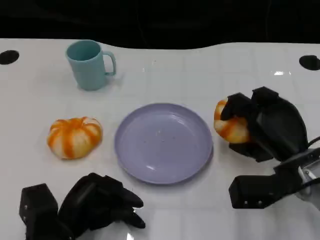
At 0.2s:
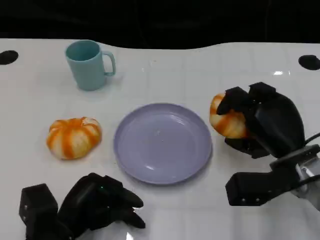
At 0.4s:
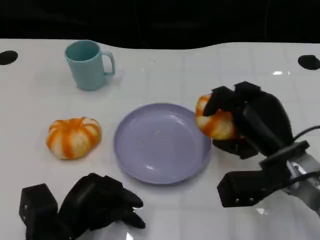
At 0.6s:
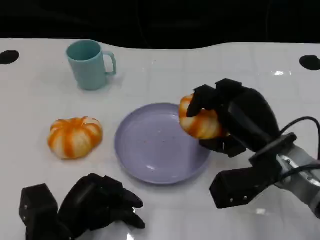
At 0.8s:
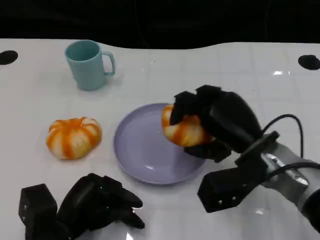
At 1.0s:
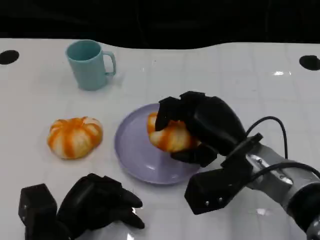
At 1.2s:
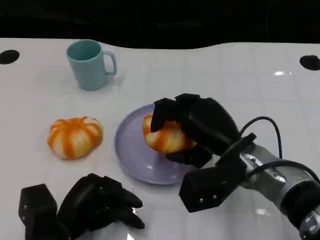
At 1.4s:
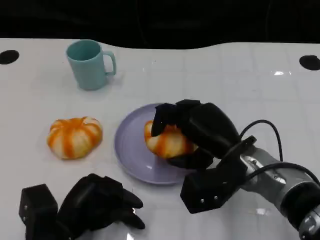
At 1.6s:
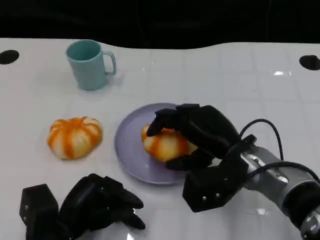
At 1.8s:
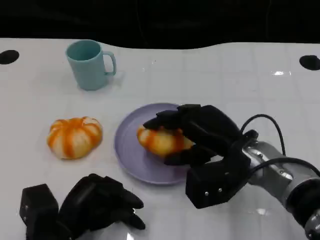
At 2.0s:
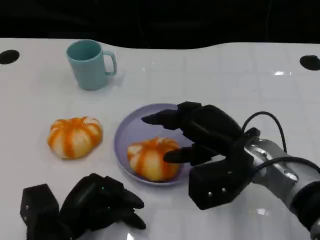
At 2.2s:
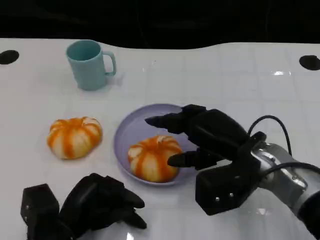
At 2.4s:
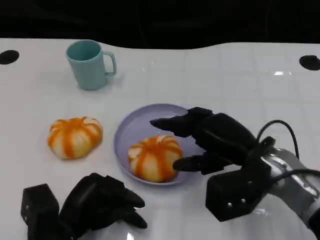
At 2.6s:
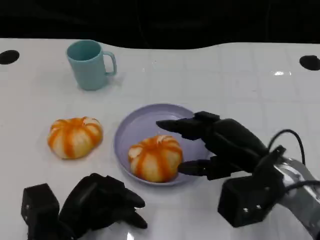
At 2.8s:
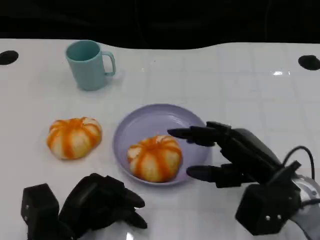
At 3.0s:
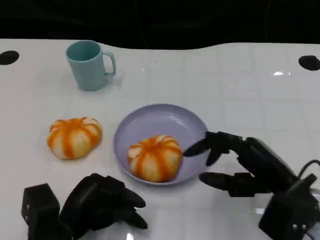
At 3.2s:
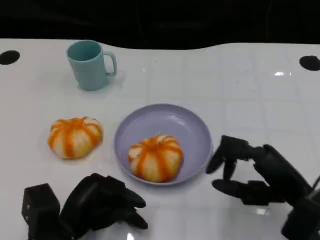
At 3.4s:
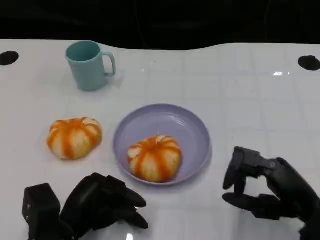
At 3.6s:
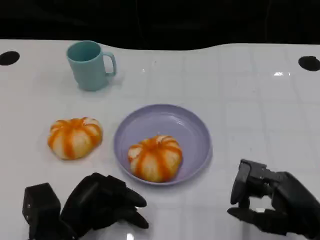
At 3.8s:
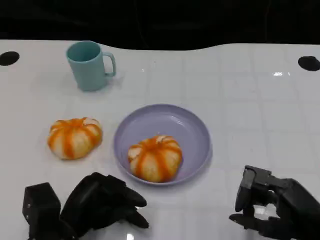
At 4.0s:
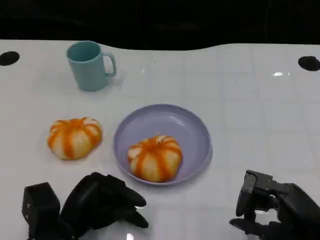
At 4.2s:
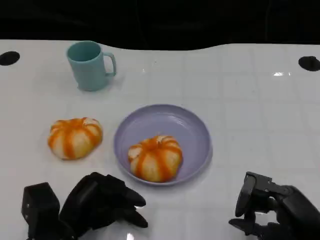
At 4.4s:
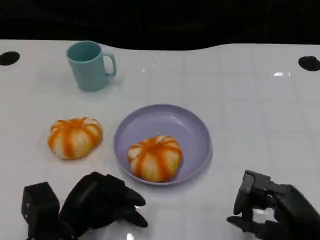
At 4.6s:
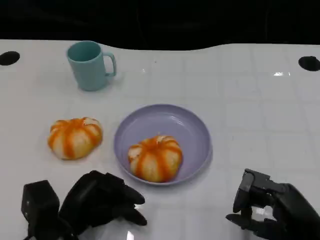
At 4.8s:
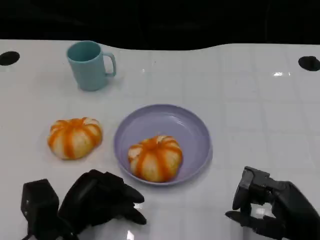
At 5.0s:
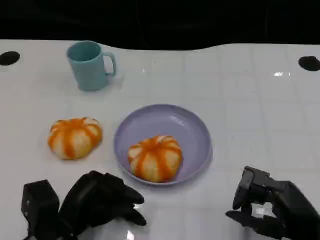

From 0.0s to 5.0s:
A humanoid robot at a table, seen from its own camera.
Task of the whole recording: Grasp the bread from the table and place it into the plate.
From 0.0s to 1.6s: The right hand is displaced to the left by roughly 10 cm.
From 1.6s to 3.4s: The right hand heads to the right and backward, covering roughly 15 cm.
From 3.4s to 5.0s: There are only small adjustments of the hands.

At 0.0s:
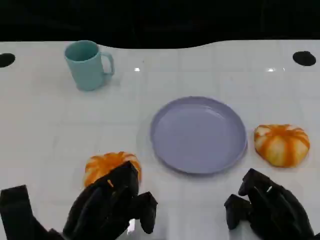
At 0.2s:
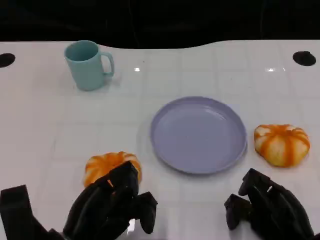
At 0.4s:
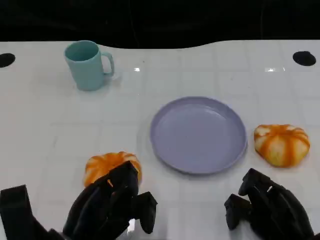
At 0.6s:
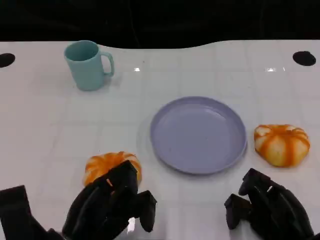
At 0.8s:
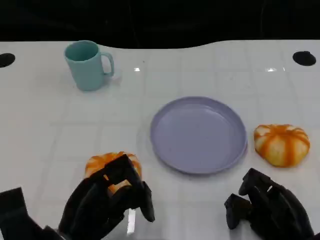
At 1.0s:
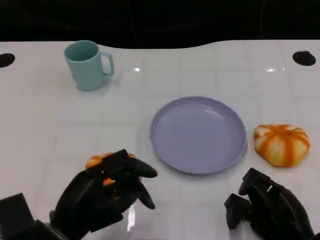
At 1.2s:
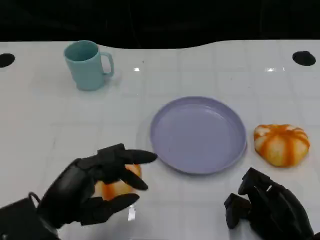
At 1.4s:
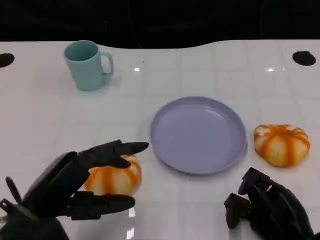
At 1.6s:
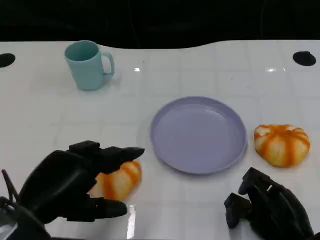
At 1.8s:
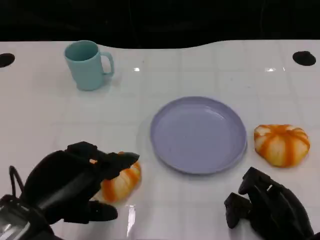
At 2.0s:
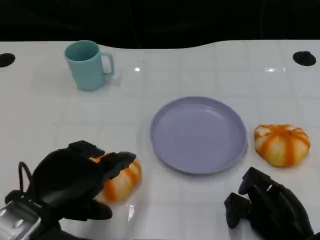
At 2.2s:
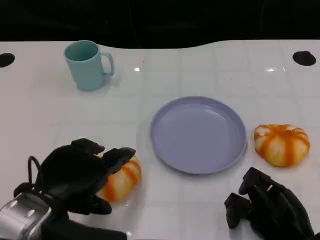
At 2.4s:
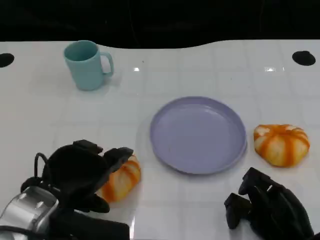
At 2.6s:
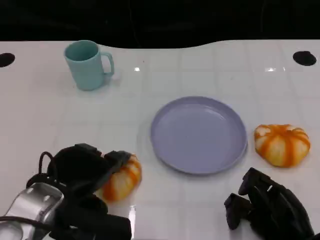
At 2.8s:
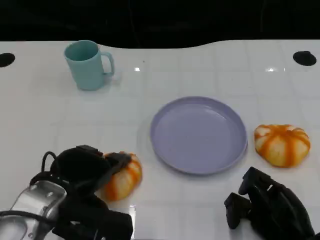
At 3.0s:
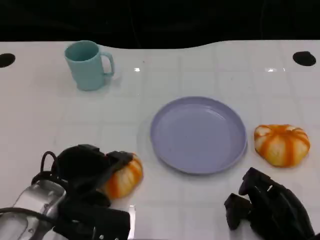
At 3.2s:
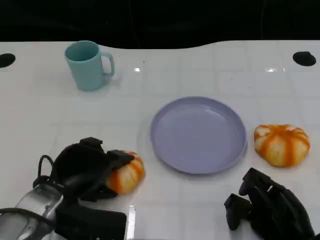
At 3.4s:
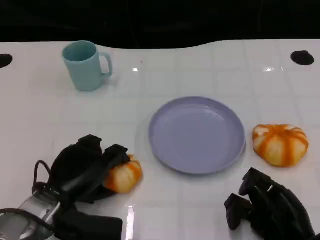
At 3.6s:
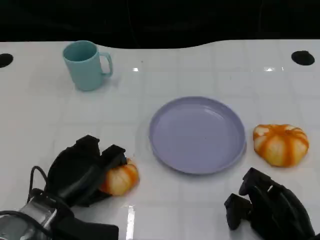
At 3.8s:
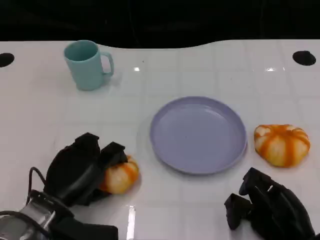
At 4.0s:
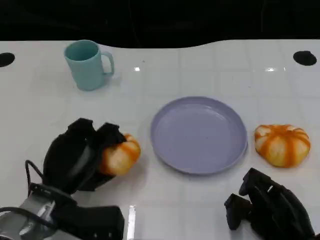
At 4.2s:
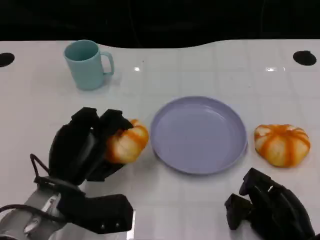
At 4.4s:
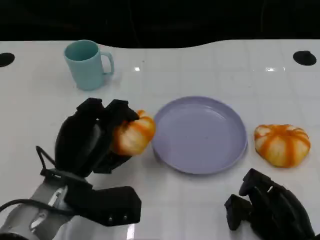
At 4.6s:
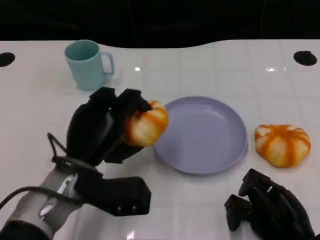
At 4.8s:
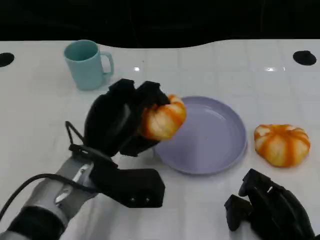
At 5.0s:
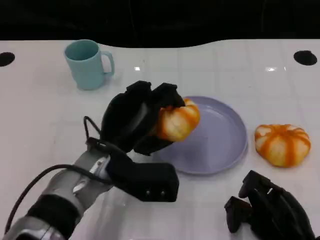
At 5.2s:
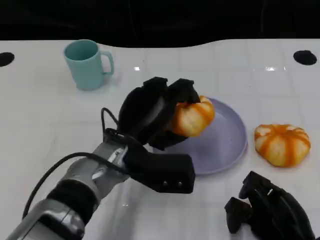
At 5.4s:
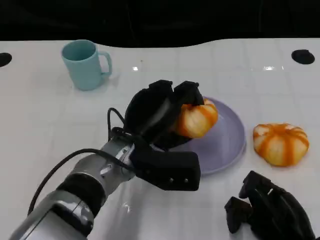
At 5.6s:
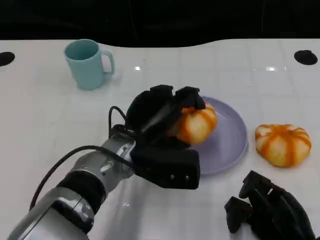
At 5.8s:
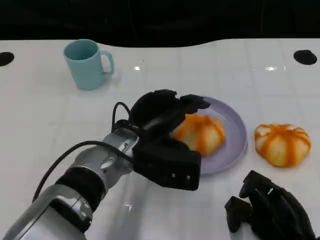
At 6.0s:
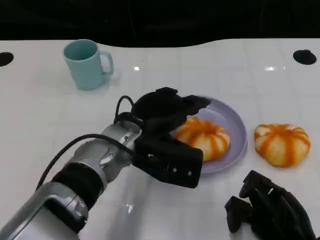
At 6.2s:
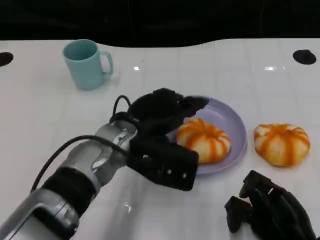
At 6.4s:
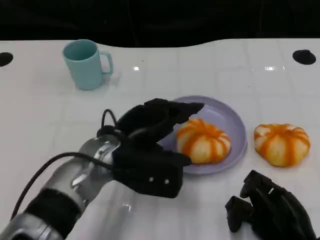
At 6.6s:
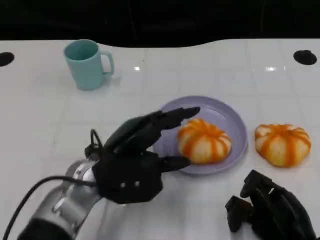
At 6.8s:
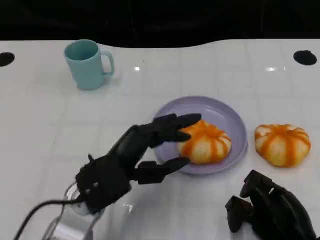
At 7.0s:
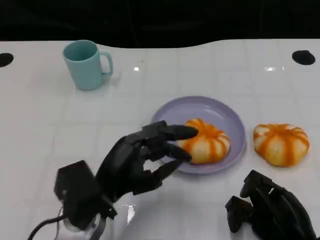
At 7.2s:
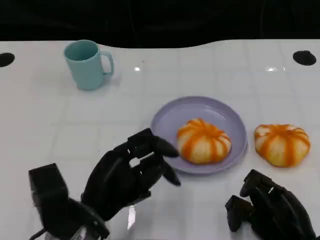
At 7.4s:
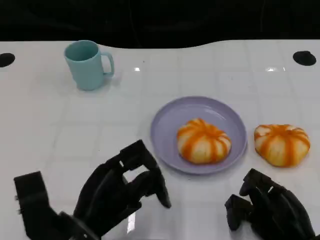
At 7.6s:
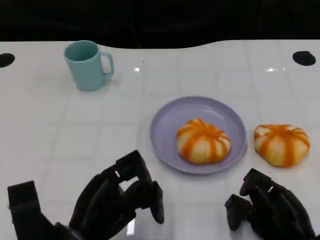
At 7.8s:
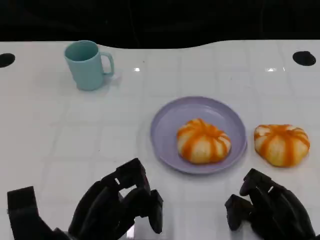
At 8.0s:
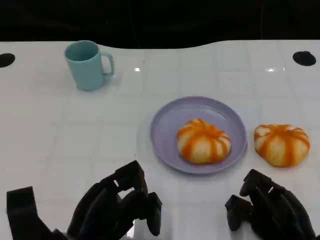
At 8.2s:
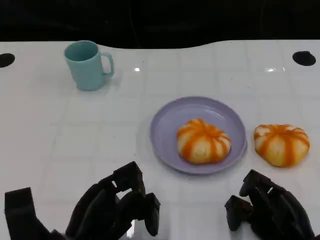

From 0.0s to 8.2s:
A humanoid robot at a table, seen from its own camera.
Task of the whole recording: Grasp the bread from the table and place it into the plate.
From 0.0s to 1.6s: The left hand moves upward, roughly 10 cm.
From 1.6s to 3.2s: The left hand moves downward and forward, some 10 cm.
From 3.2s to 5.0s: The left hand is displaced to the right by some 10 cm.
From 6.6s to 8.2s: The left hand shifts approximately 10 cm backward and downward.

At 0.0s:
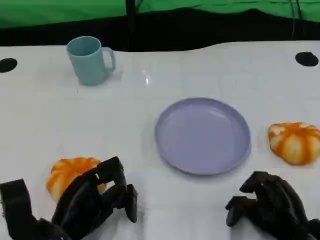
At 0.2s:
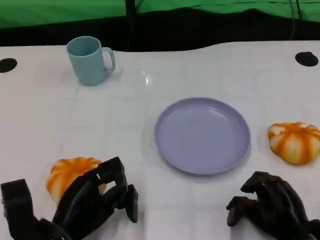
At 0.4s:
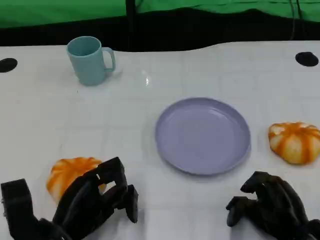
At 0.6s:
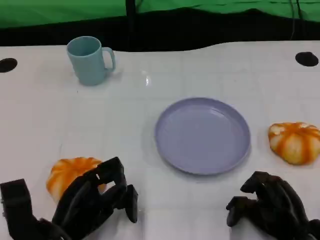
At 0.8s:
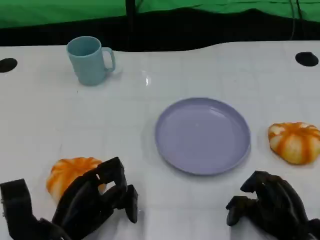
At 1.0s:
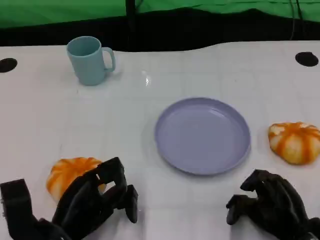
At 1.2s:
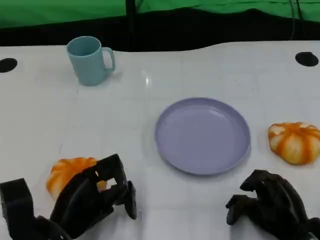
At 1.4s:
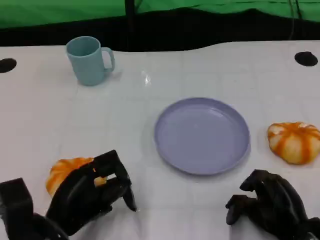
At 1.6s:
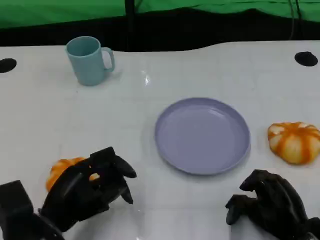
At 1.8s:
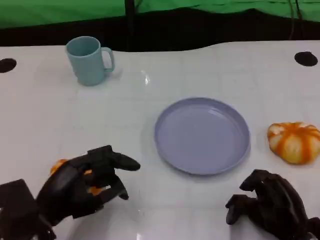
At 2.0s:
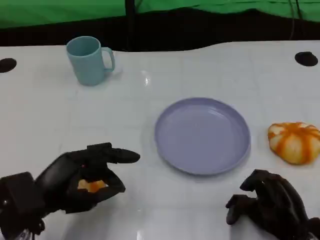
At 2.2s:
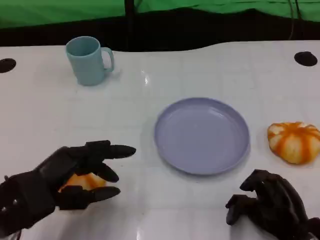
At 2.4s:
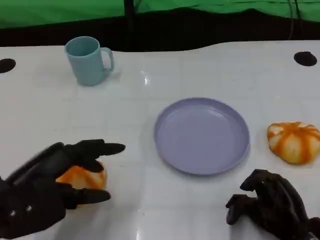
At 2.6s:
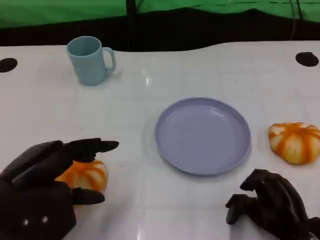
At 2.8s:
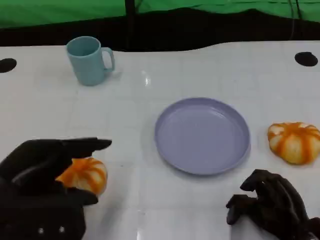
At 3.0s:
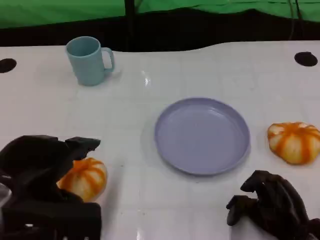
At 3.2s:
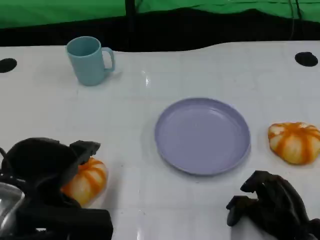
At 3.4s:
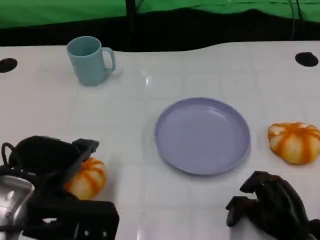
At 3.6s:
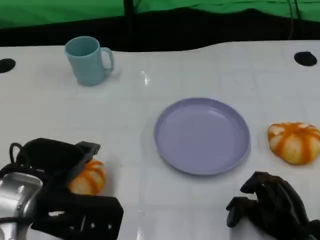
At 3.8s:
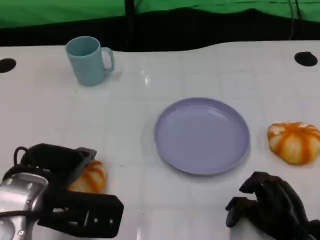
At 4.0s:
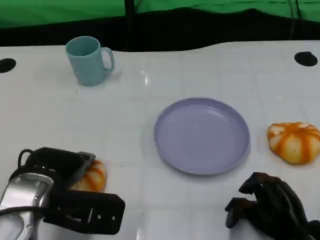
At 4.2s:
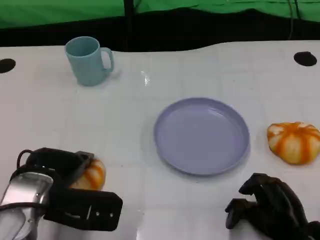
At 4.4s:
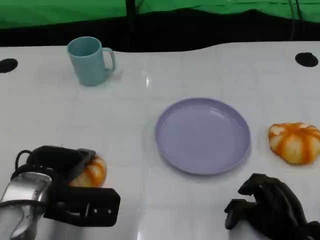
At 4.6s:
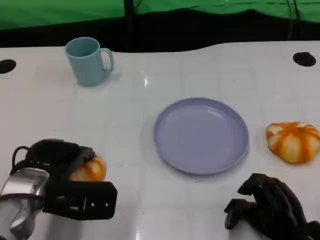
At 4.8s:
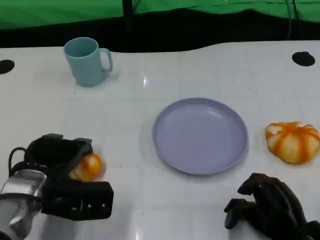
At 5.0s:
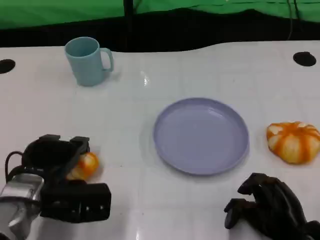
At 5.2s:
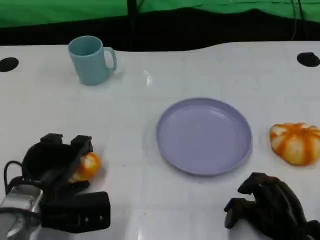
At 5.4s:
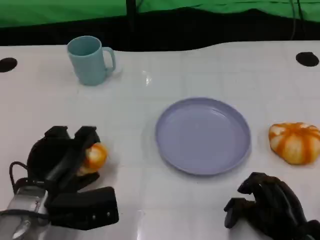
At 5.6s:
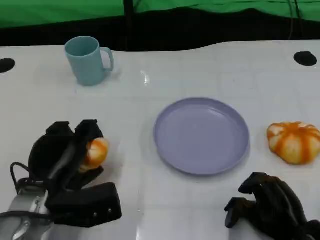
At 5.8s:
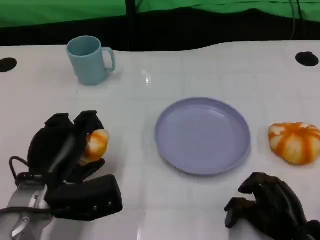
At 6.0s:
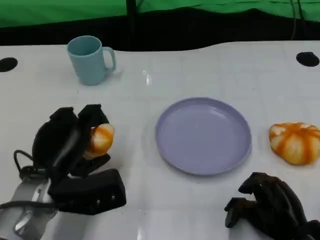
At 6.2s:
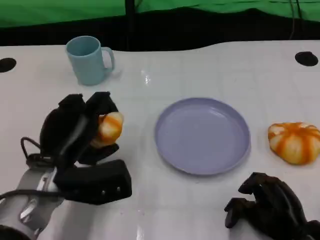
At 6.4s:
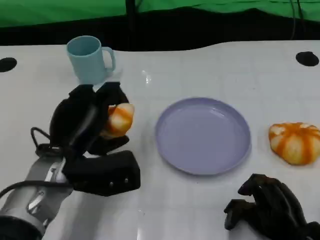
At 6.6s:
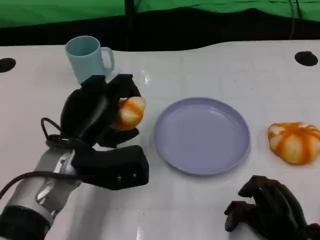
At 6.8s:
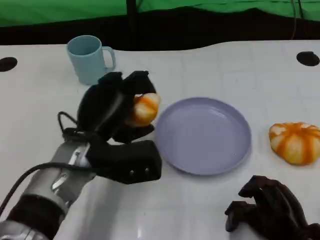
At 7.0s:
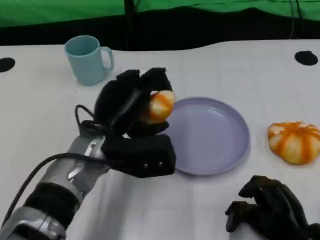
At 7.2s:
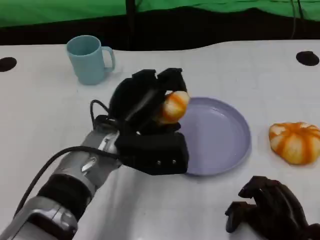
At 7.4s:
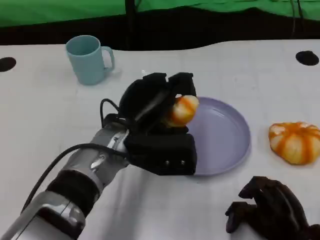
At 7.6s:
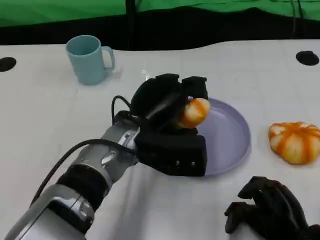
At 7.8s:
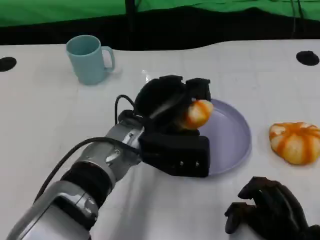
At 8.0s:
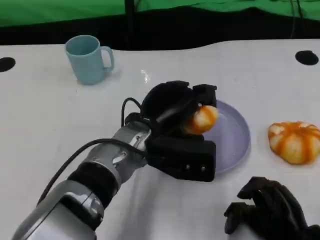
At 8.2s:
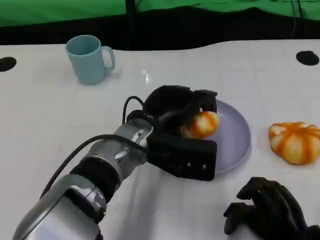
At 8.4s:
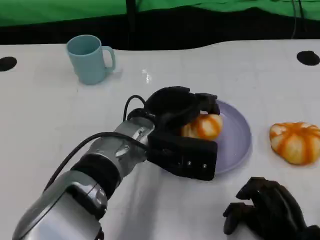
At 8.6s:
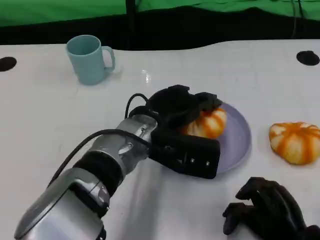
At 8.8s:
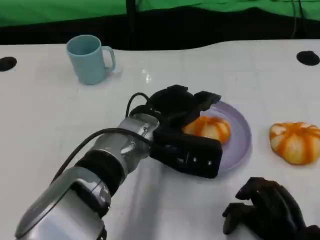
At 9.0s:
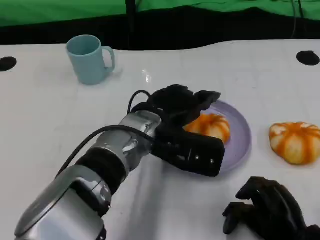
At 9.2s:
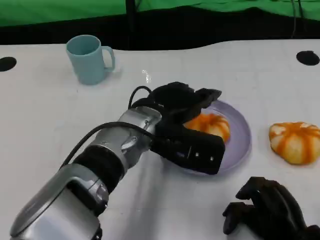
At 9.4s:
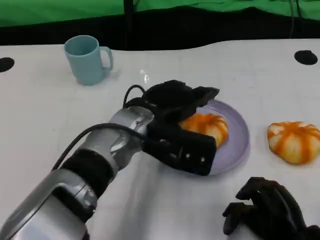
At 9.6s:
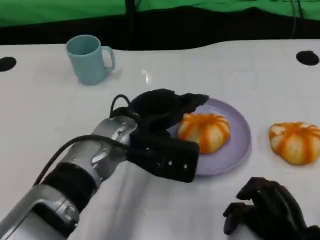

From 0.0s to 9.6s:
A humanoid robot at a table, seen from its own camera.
Task of the whole recording: Grasp the bread from the table and place it into the plate.
From 1.6s to 3.2s: The left hand travels upward by some 10 cm.
From 3.2s to 4.8s: The left hand heads downward and forward, covering roughly 10 cm.
From 4.8s to 6.4s: The left hand moves about 5 cm.
From 6.4s to 8.0s: The left hand moves to the right, approximately 10 cm.
